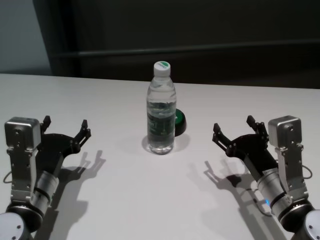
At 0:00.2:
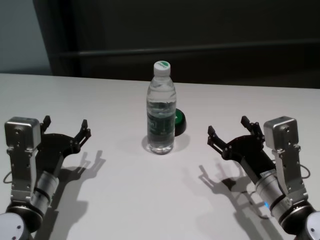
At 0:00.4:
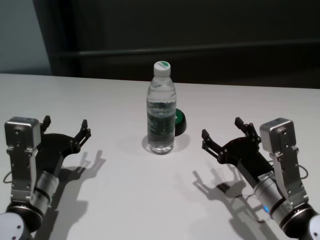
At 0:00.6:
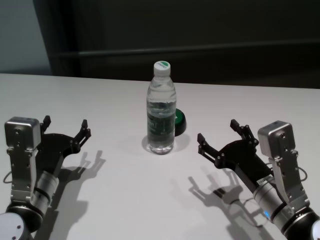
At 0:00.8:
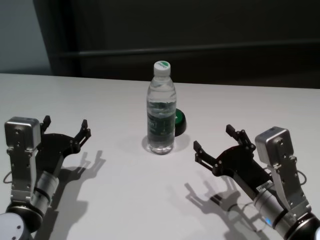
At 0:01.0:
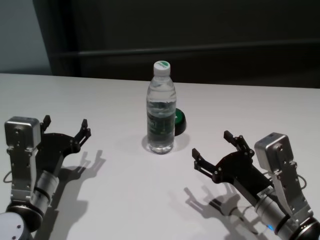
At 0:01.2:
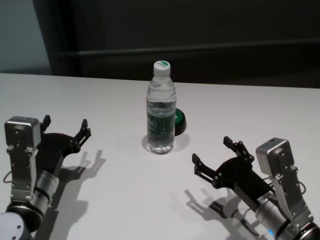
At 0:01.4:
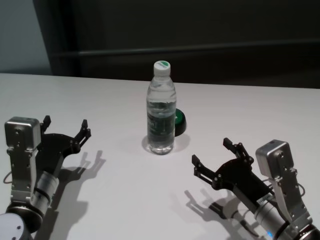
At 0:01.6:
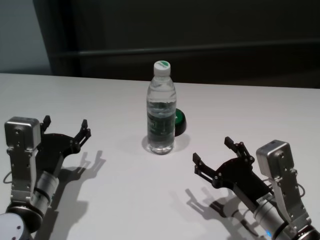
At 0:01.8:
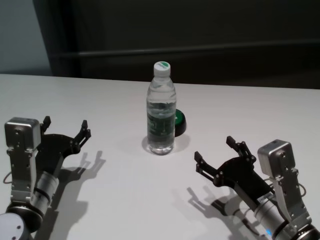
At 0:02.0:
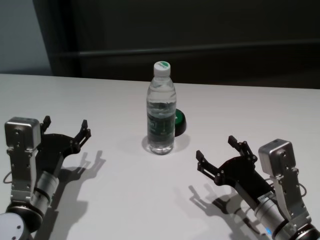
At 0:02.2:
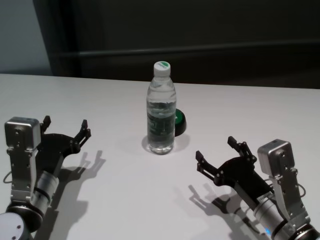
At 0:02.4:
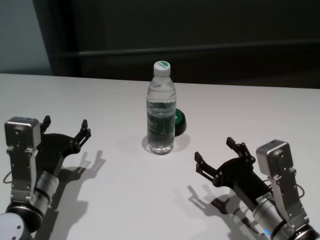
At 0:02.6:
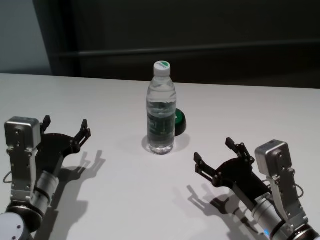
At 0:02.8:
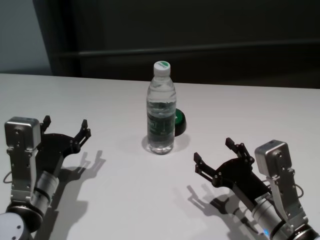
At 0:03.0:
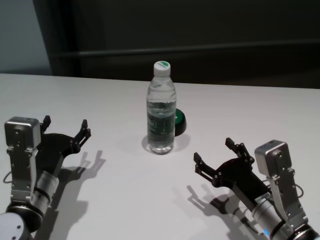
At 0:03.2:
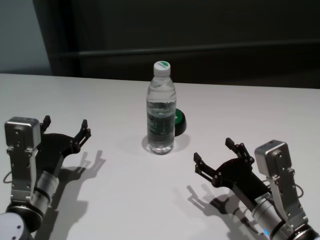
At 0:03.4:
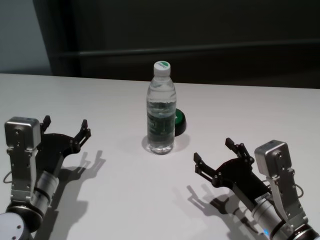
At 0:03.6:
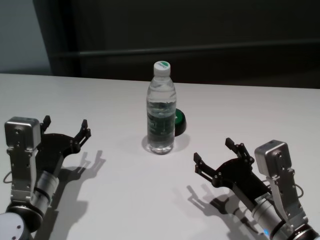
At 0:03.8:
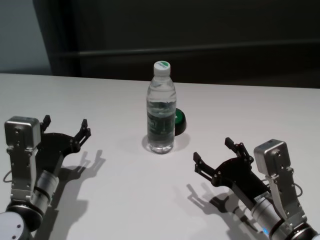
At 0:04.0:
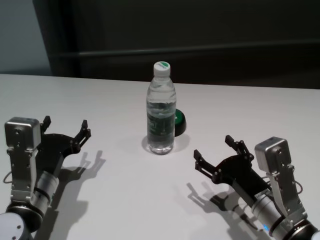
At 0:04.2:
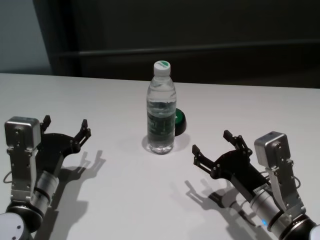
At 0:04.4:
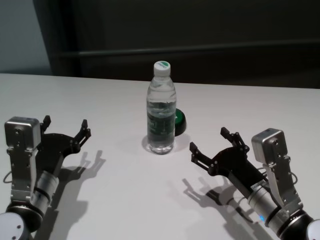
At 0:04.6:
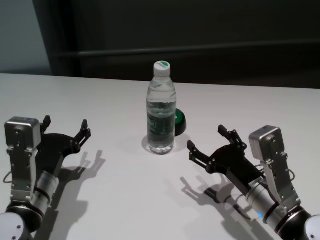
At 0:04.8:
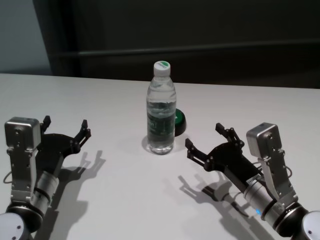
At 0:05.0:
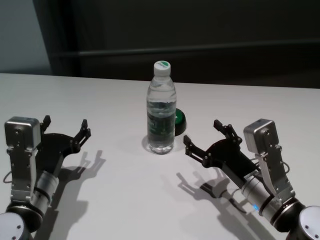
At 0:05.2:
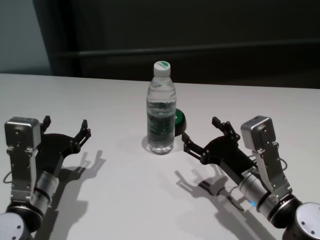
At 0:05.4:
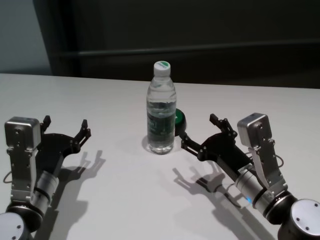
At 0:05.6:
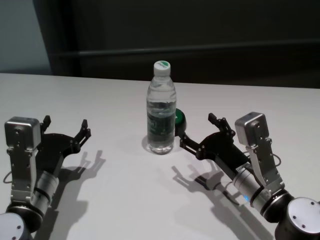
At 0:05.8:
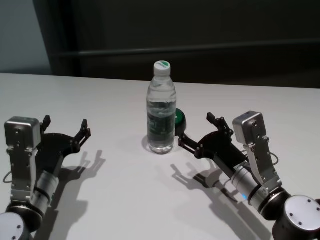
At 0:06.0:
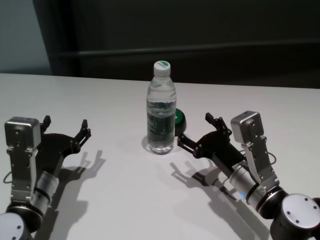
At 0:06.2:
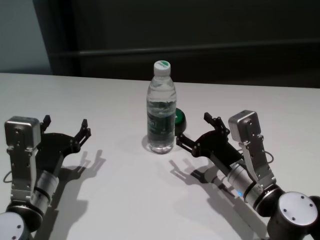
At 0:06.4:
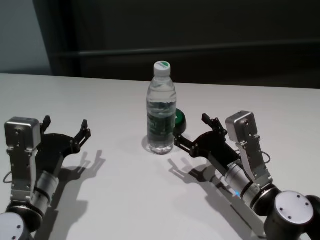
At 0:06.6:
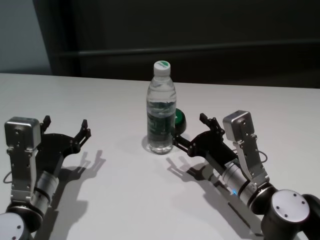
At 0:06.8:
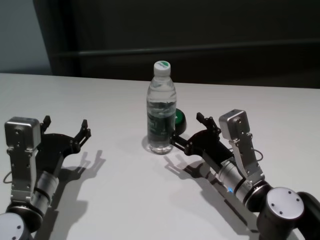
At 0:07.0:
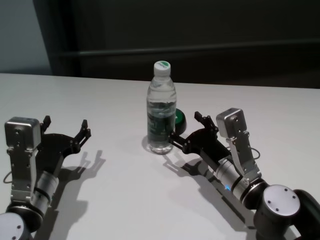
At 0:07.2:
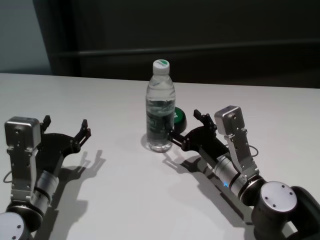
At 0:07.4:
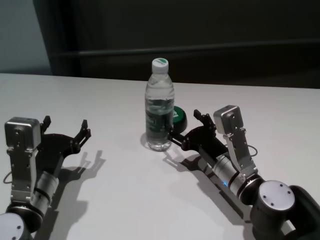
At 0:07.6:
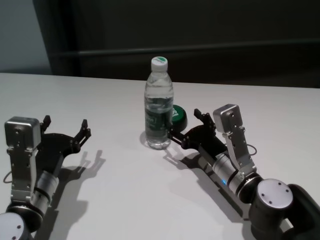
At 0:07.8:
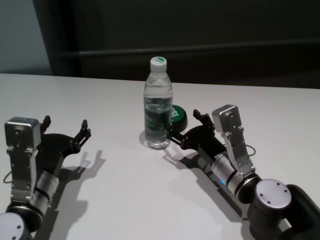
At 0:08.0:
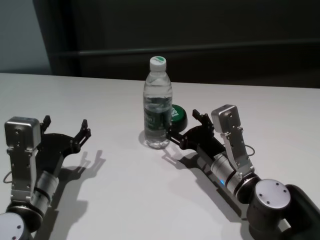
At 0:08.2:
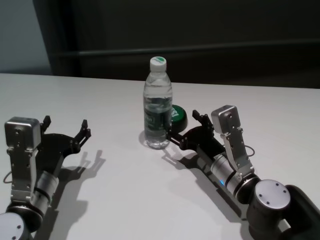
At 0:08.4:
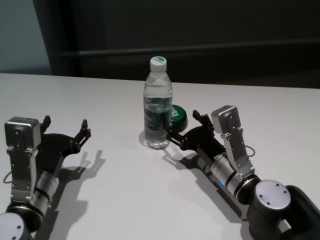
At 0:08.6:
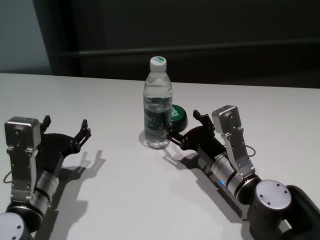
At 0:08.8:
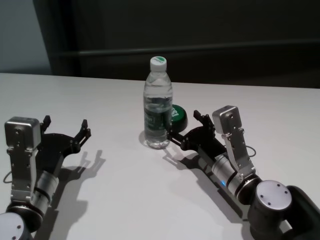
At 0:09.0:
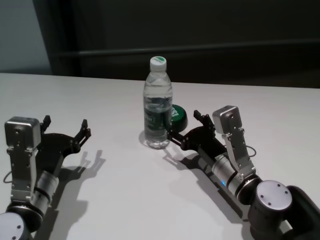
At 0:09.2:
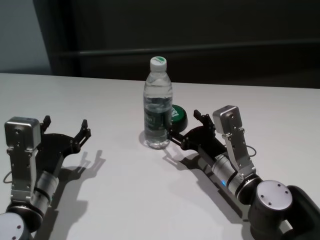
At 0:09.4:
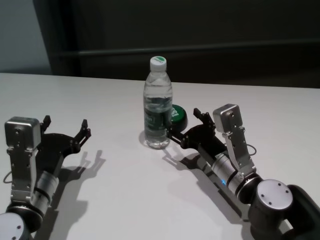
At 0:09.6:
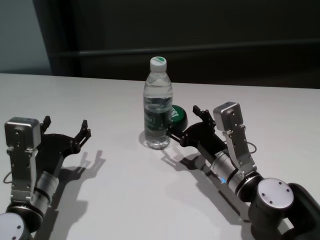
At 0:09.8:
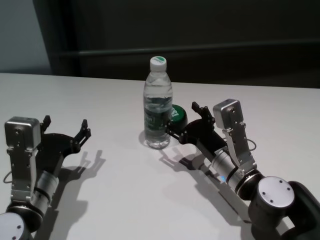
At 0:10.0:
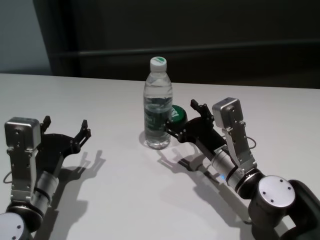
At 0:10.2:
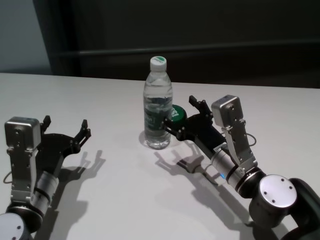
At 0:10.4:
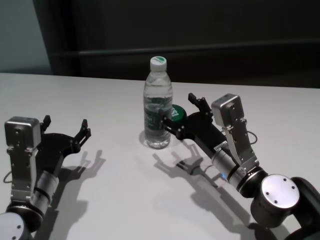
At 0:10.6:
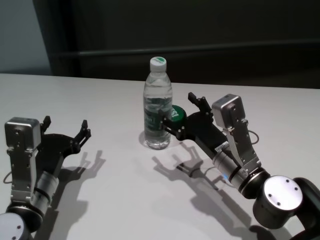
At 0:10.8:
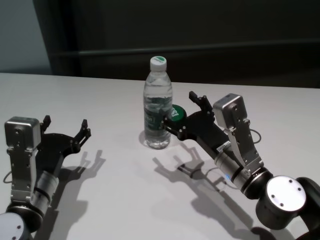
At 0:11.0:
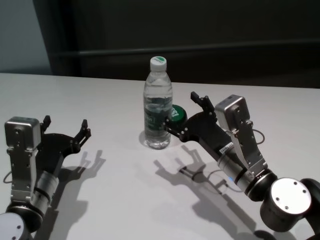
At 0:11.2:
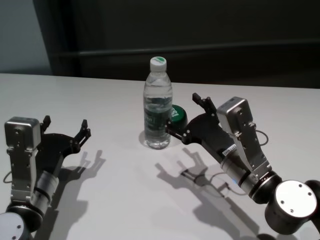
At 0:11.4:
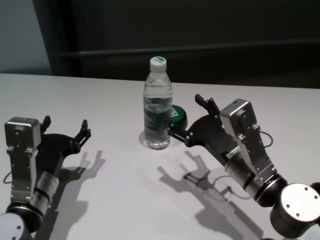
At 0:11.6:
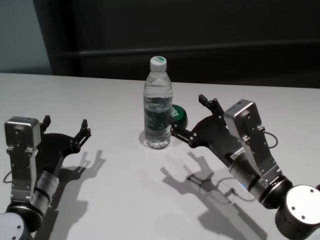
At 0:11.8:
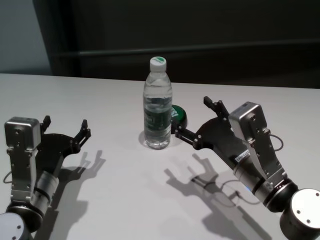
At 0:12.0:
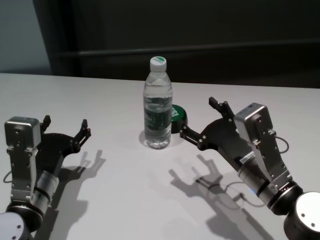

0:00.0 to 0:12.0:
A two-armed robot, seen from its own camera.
Task of the whole recording: return to a safe position after touching an obstacle with your arm on the white table.
Step, 0:00.0 to 0:10.2: Touch the bottle with right gripper.

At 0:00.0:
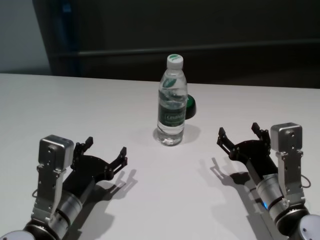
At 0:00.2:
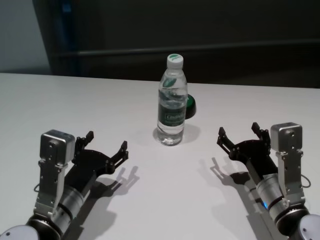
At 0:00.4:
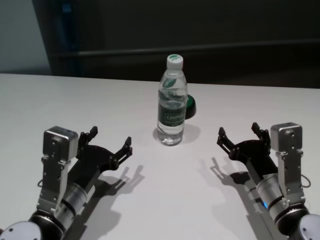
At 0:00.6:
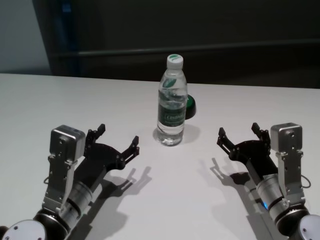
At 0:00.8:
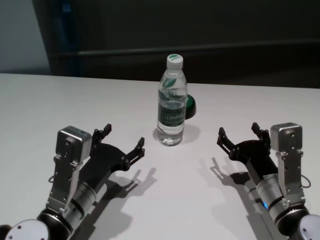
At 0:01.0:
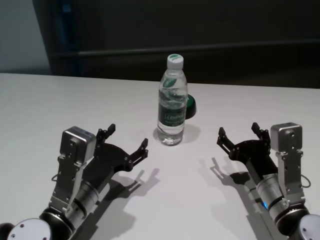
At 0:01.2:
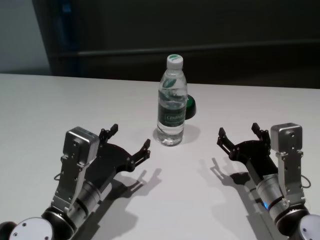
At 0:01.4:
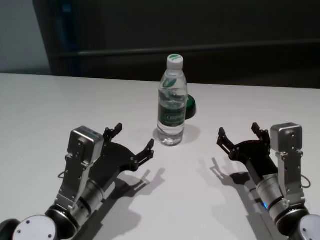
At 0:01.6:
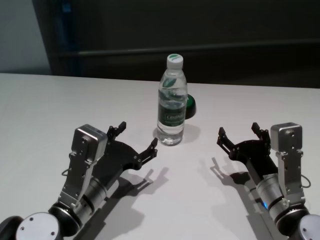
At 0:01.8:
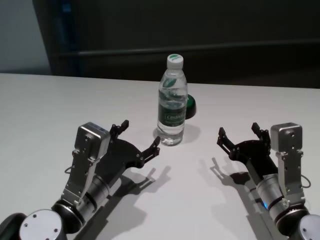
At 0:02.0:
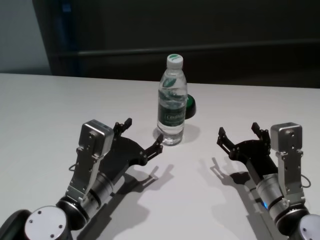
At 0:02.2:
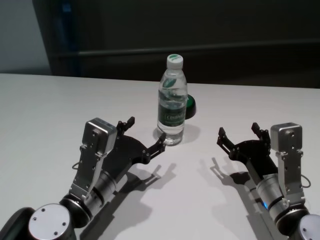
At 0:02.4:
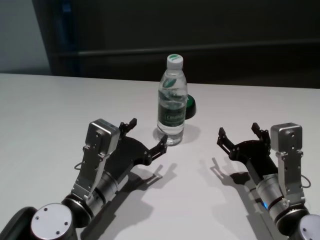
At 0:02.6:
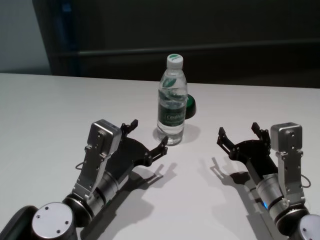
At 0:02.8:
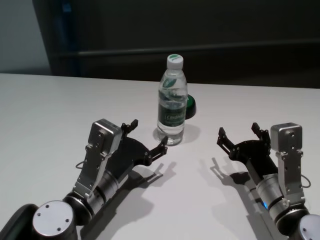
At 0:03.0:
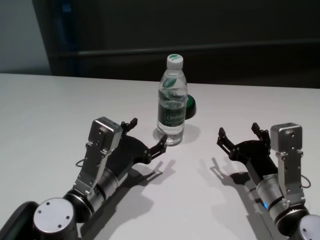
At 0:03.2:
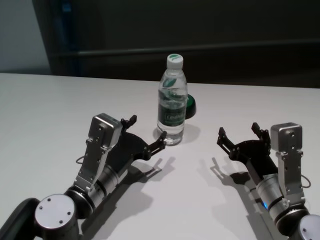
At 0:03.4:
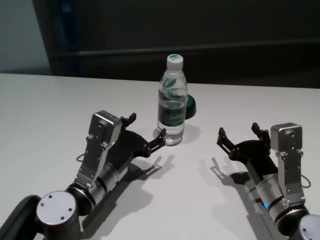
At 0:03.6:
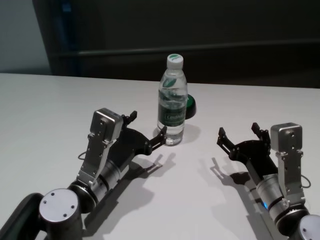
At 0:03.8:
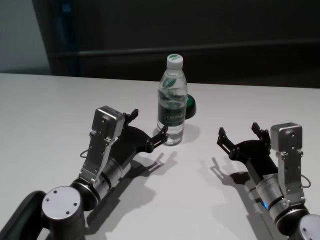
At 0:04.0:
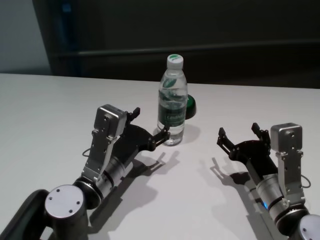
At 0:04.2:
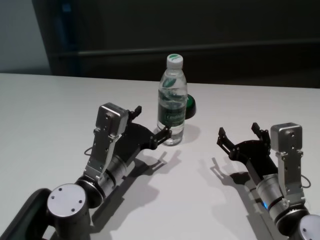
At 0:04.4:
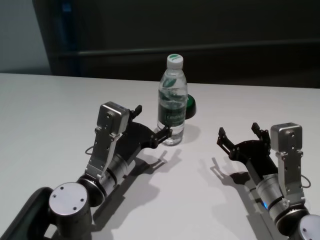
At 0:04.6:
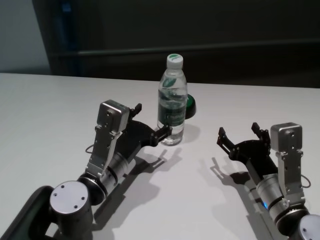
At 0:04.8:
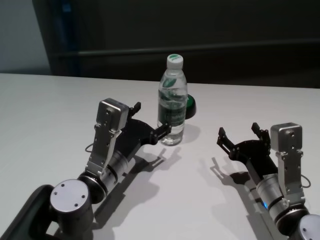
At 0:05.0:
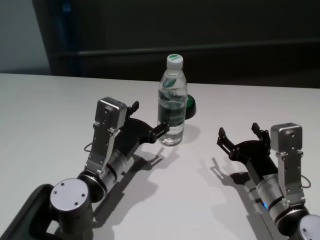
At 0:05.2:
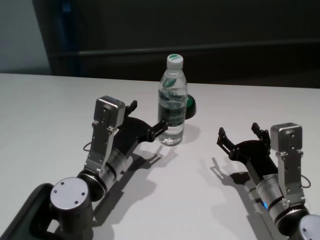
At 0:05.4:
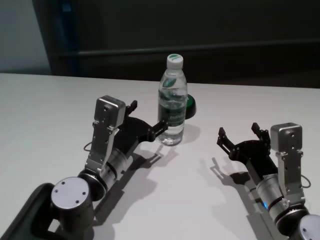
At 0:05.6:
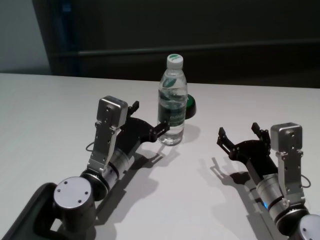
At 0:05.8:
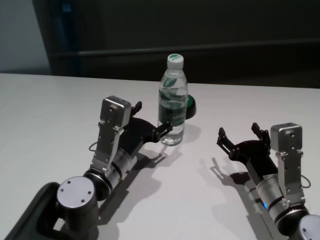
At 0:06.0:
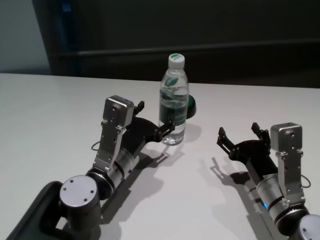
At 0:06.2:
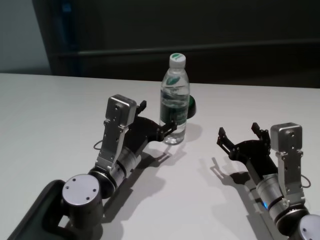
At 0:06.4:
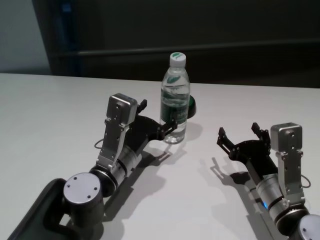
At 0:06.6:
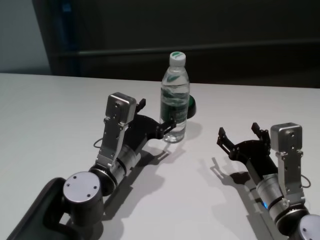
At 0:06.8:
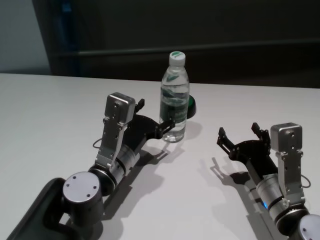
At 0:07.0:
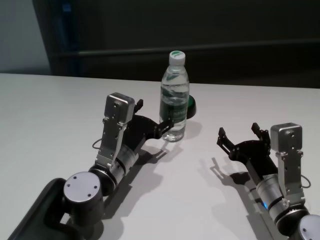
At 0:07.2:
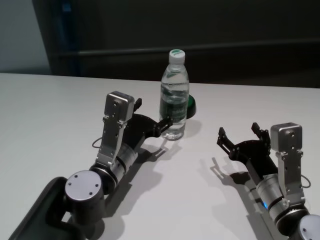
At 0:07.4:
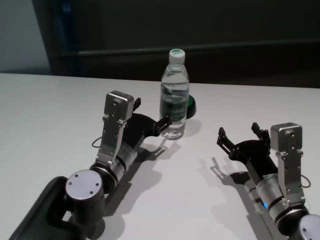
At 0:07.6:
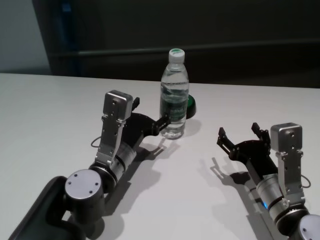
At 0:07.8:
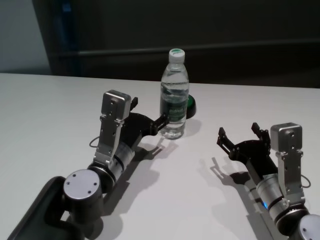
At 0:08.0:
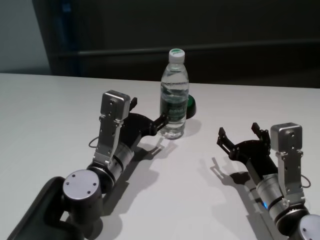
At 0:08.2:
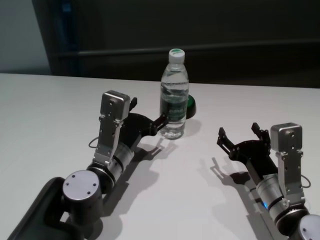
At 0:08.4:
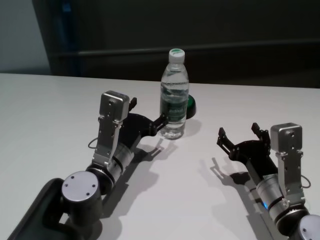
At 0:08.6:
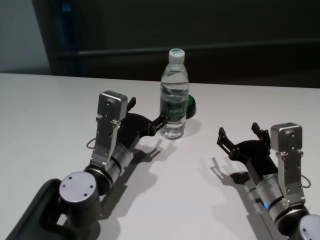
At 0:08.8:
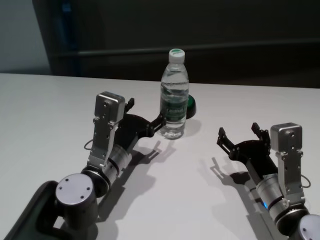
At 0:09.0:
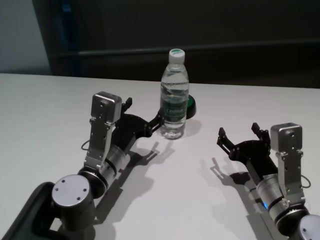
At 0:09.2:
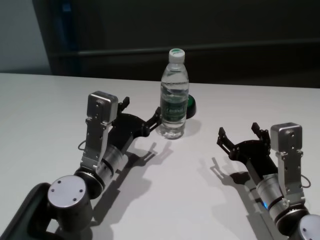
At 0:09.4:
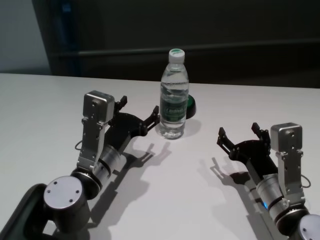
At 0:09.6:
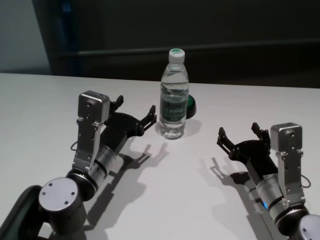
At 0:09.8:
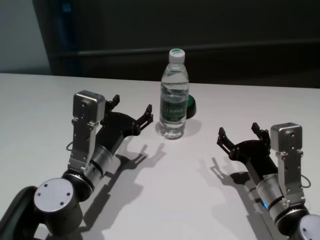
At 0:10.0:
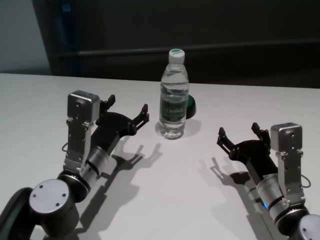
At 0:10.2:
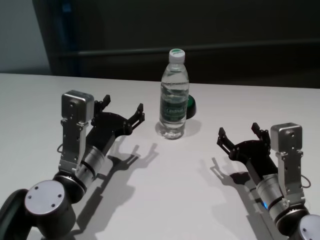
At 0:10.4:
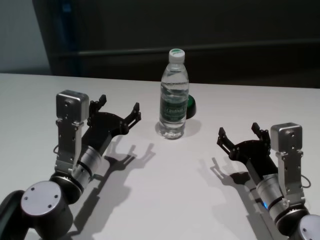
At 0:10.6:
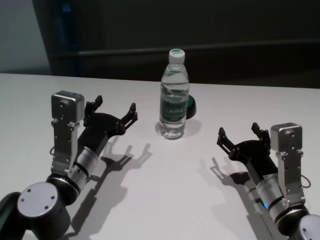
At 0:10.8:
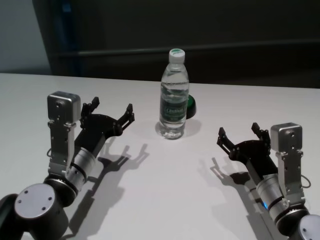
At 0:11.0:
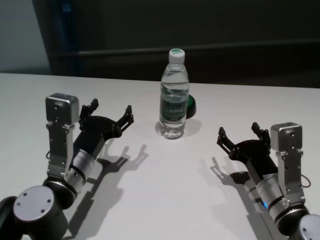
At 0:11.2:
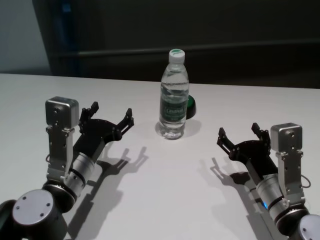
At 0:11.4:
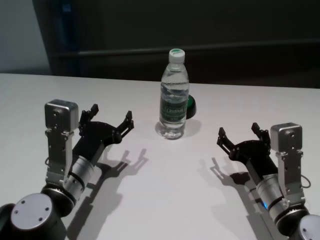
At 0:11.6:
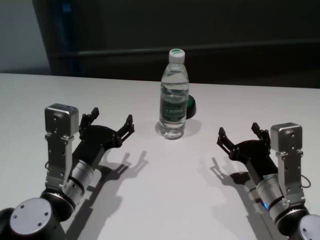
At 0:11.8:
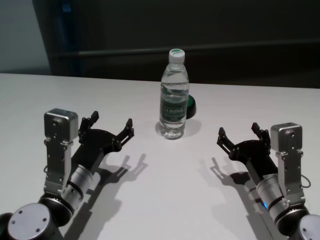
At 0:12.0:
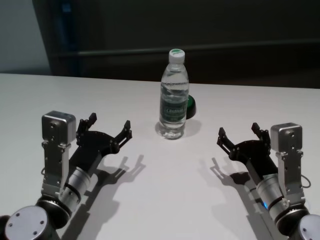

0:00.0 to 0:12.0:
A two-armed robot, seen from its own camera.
Task of the whole recording: return to a safe position after touching an obstacle with your arm on the white table.
Step, 0:00.0 to 0:09.4: Touch the bottle with left gripper.
